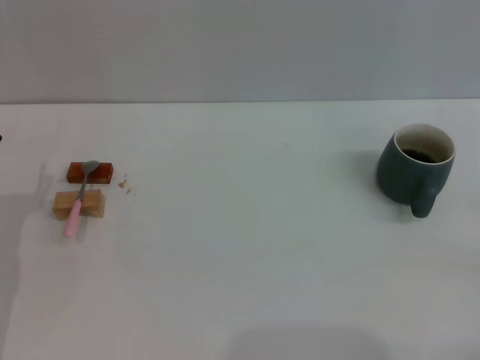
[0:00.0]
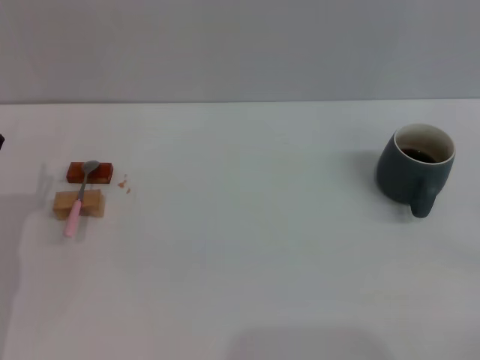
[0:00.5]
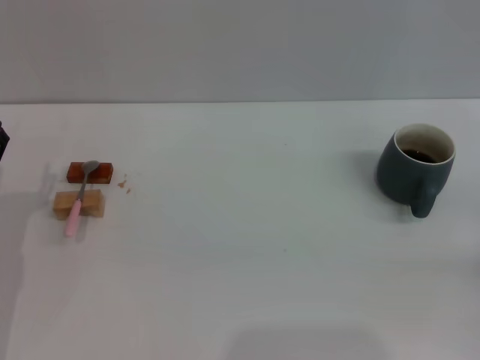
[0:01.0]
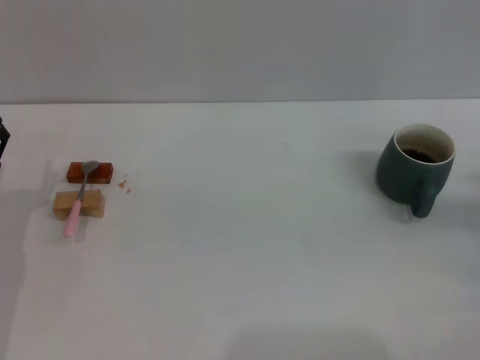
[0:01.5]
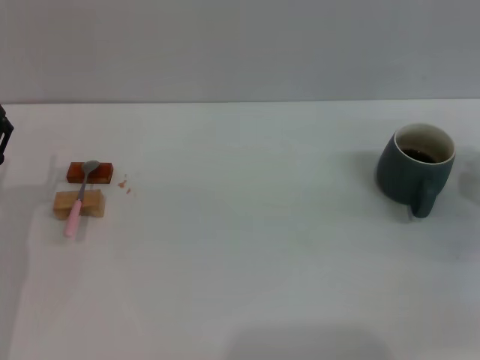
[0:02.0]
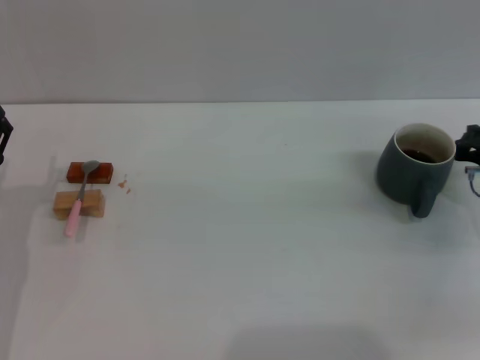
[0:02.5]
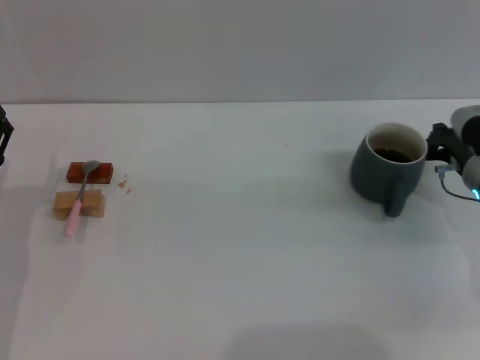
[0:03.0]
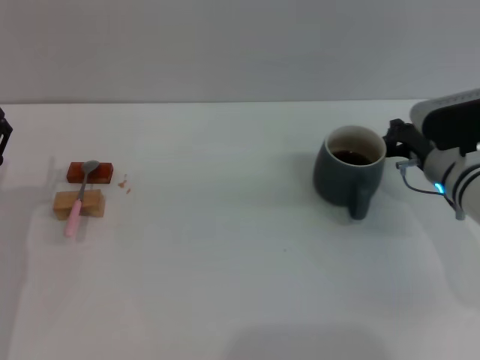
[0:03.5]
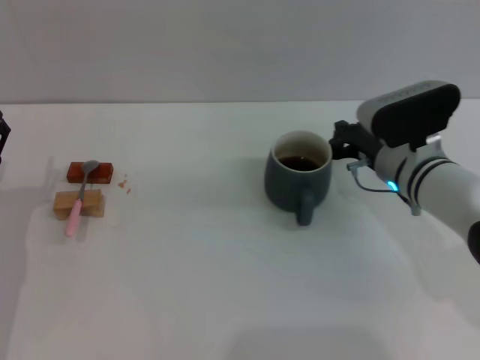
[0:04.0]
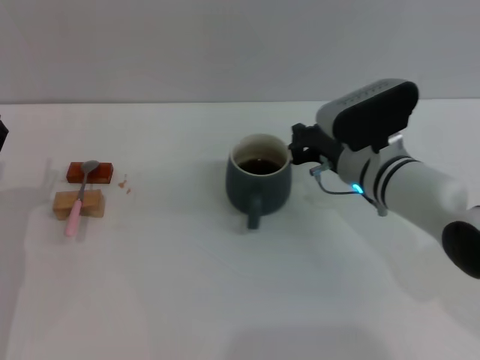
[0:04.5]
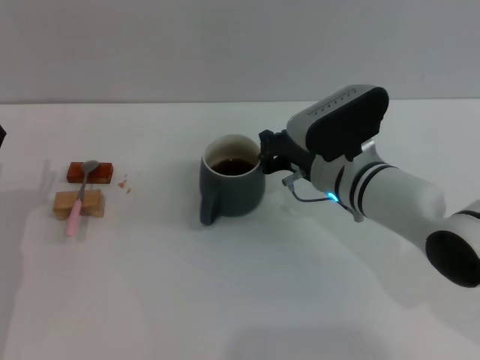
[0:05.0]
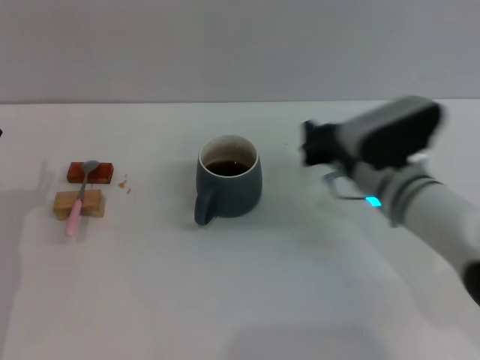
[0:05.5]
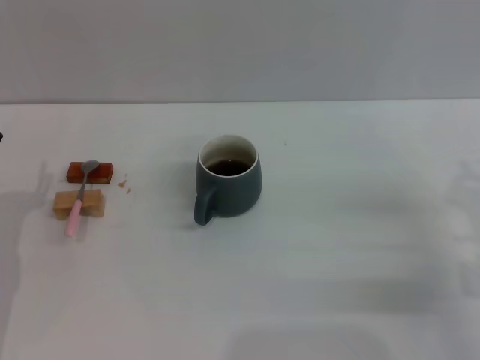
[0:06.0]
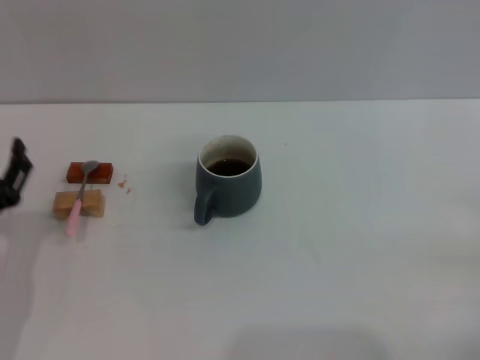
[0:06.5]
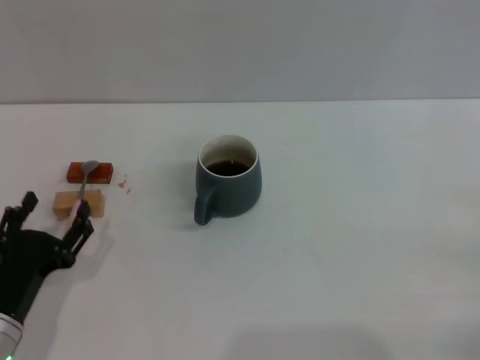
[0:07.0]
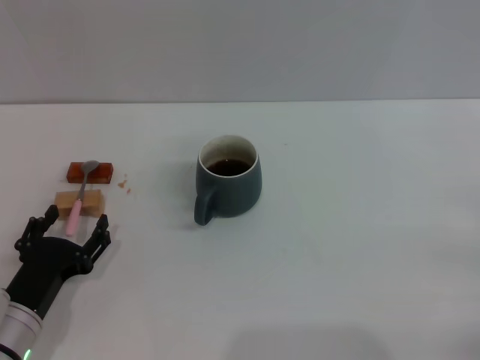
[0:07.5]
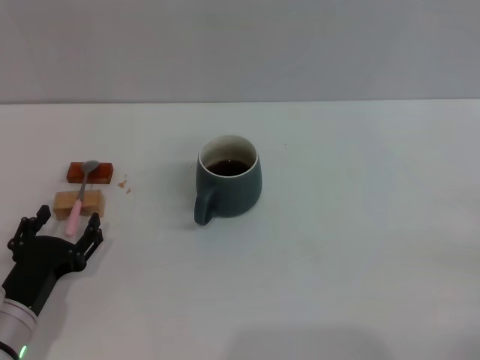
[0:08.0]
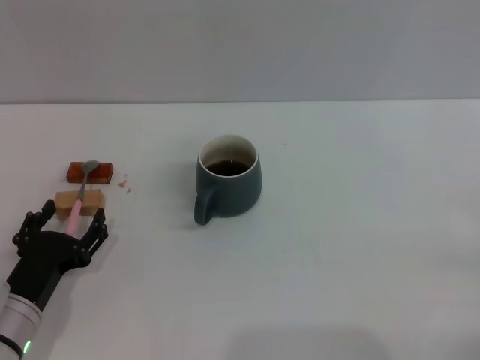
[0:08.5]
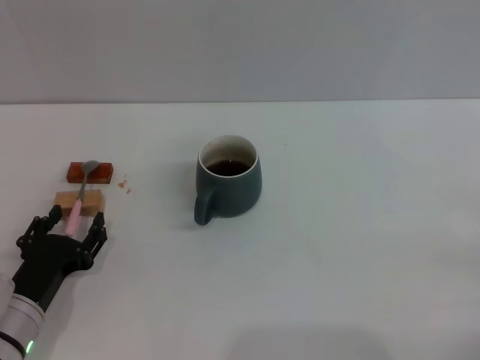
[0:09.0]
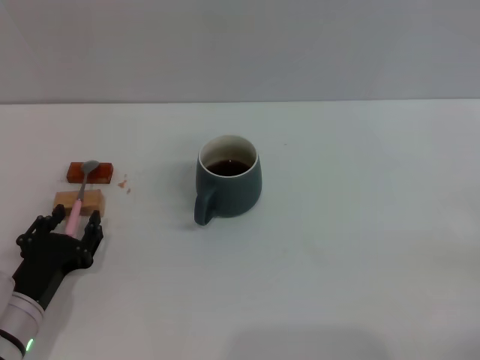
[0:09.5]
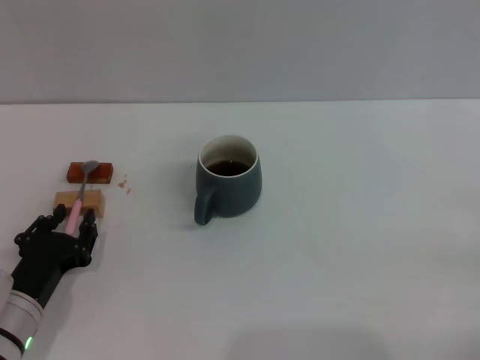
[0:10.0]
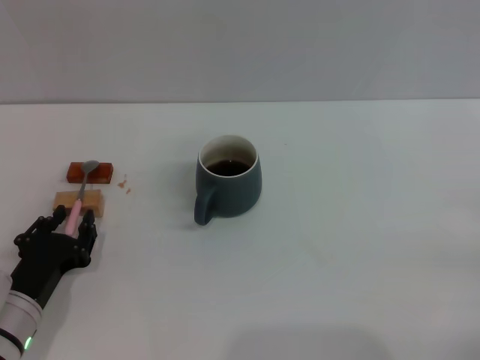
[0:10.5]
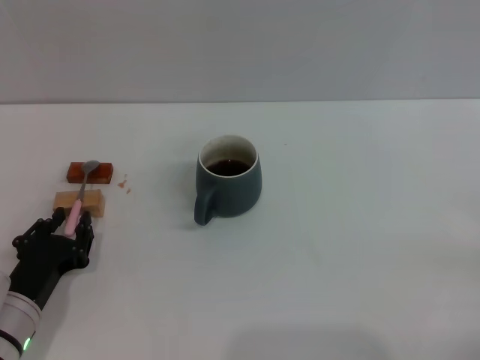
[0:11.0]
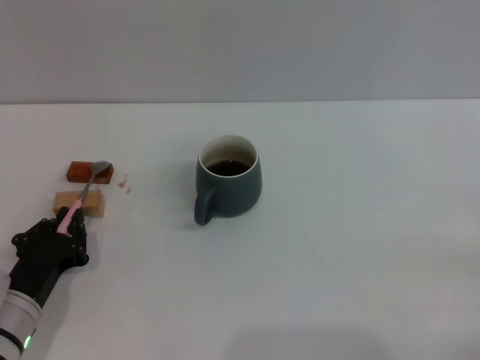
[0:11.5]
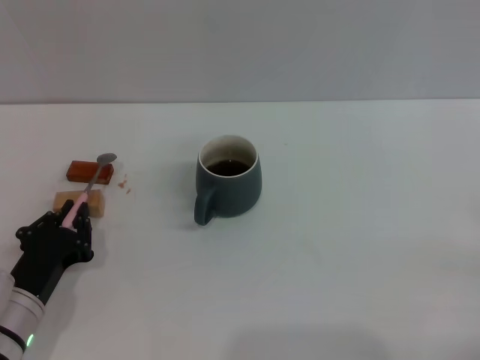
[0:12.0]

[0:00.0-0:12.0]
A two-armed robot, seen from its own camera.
Task of the whole recording: Move the grey cup to the center, lift the pink spoon, stir it three times in the cup, and put the spoon into the cup.
Step, 0:00.0 to 0:05.0: Move the cup with coffee to the center of view with the right gripper.
0:00.0 to 0:02.0: The right gripper goes about 20 cm forward.
0:02.0 to 0:04.0: The right gripper shifts some 15 cm to the left.
0:04.0 to 0:06.0: The right gripper heads backward and to the right, covering roughly 20 cm.
0:06.0 to 0:08.0: The left gripper goes about 10 cm downward, to the right and backward, while the right gripper is displaced backward and to the right by about 10 cm.
0:08.0 to 0:10.0: The two grippers keep their place.
0:10.0 to 0:12.0: The left gripper closes up.

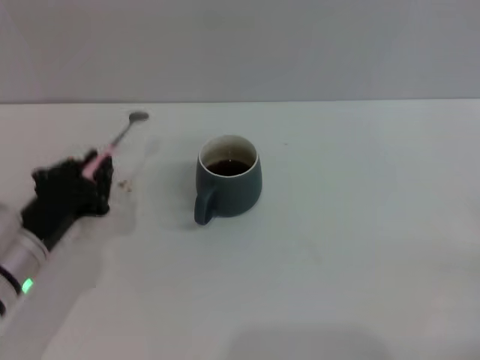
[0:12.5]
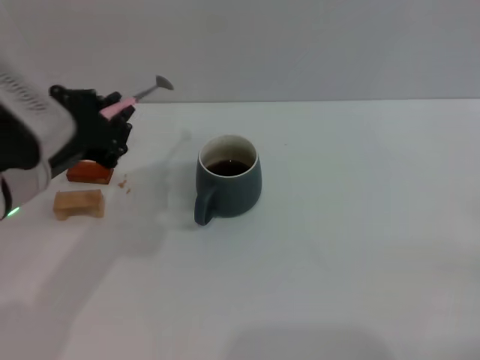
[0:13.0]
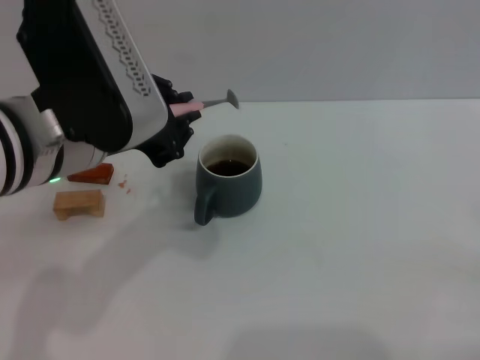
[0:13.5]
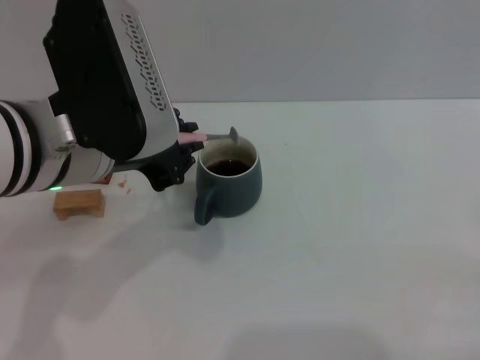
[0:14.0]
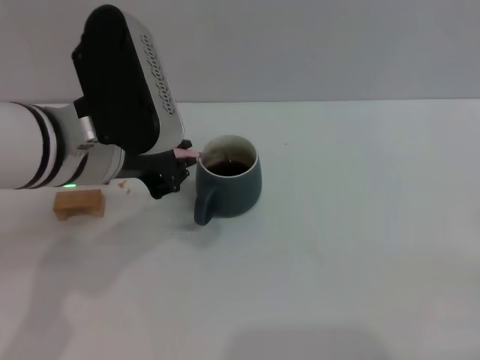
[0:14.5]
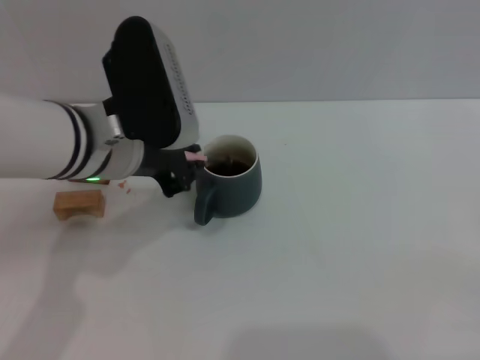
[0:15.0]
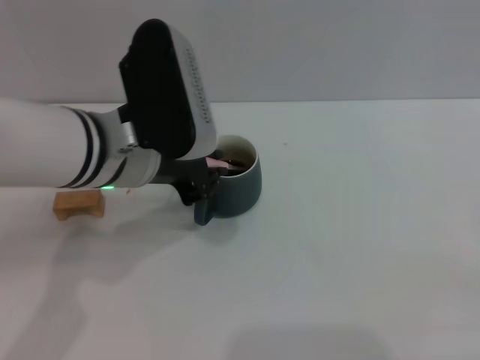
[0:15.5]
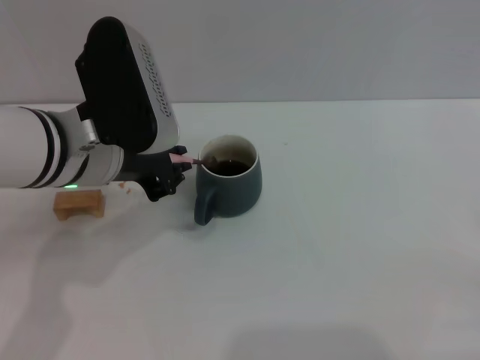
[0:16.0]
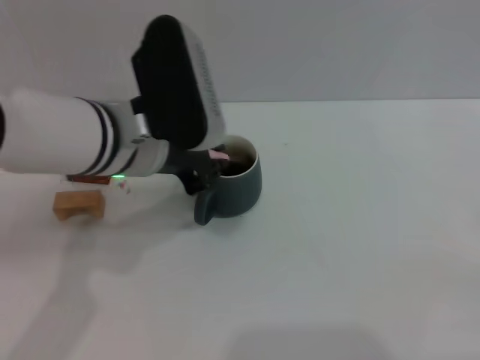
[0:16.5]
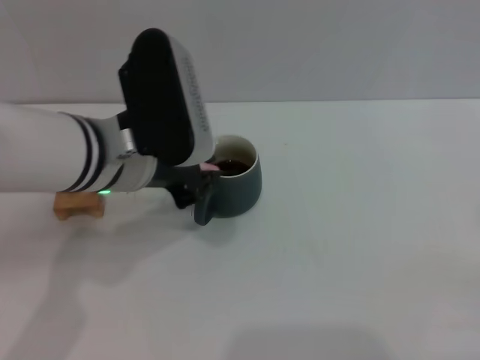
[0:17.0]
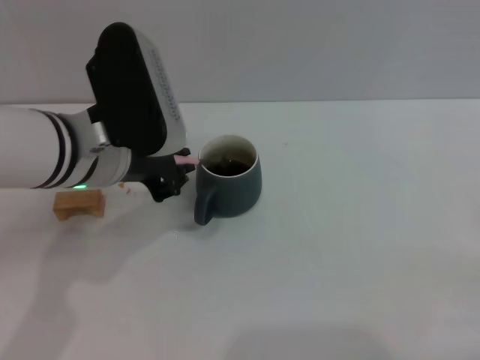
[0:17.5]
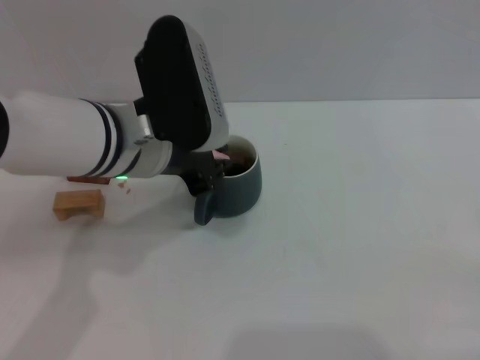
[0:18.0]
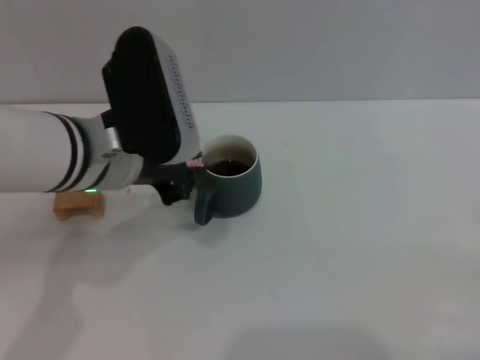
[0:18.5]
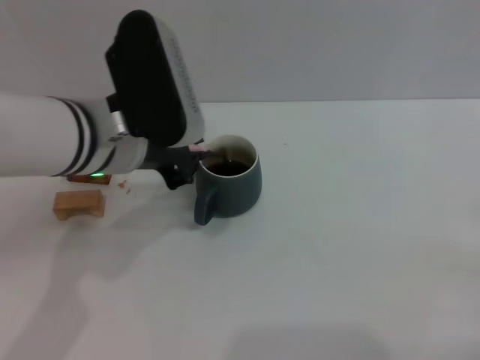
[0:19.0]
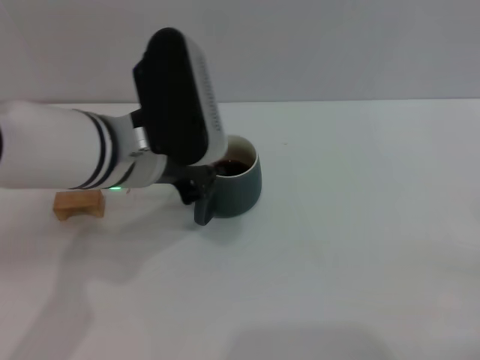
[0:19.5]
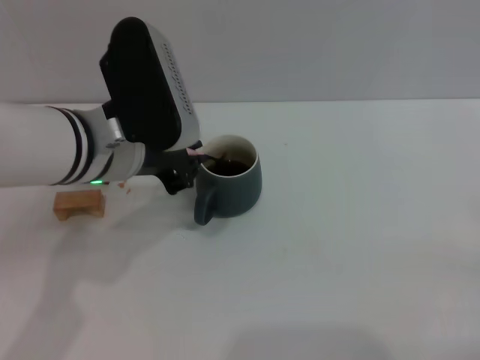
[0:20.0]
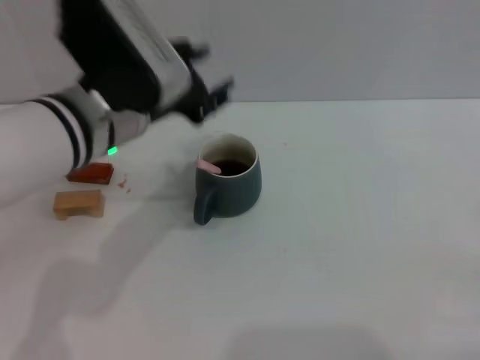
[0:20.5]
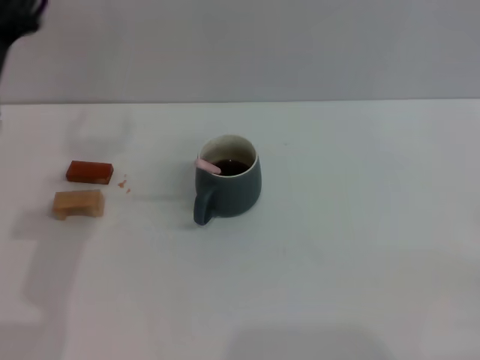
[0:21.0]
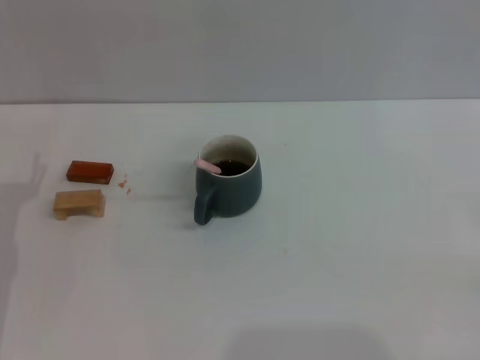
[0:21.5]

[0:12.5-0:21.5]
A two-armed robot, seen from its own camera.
Task of the whole recording: Move the grey cup to the center, lift the pink spoon, stir it three times in the cup, and put the spoon into the cup.
Step, 0:13.0 to 0:20.5: Stir the coffee in the cup with the left gripper.
0:12.5 to 0:14.5: The left gripper moves upward and to the right, some 15 cm.
0:14.5 to 0:19.5: The grippers make only small movements.
0:19.5 to 0:21.5: The left gripper goes approximately 25 cm to the left and downward, and opens.
